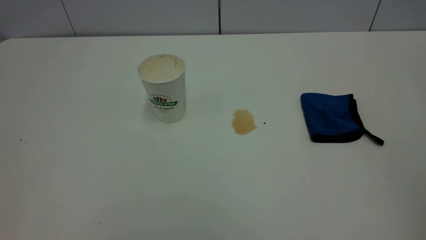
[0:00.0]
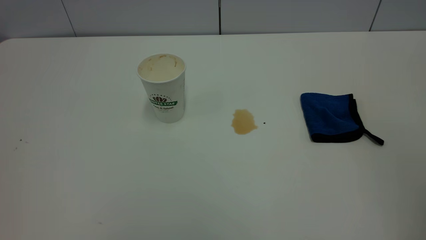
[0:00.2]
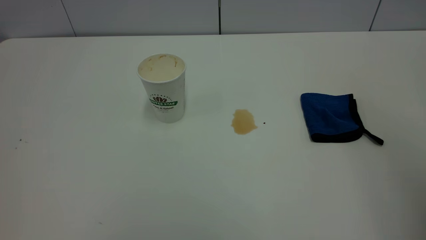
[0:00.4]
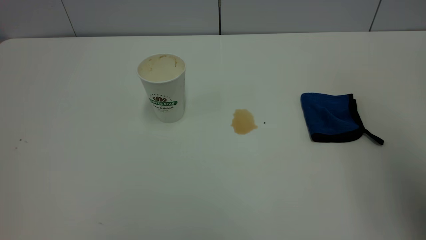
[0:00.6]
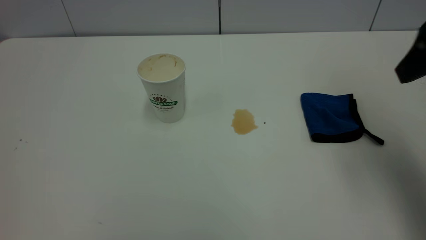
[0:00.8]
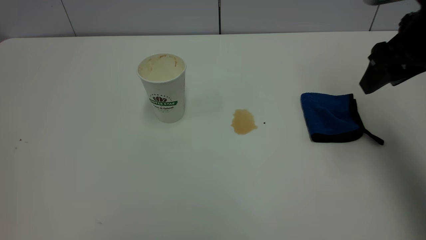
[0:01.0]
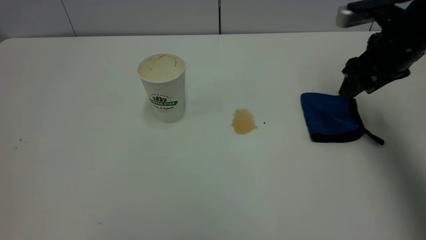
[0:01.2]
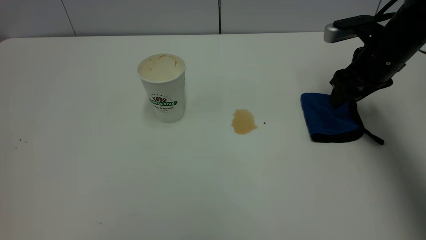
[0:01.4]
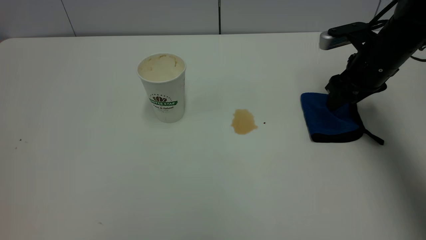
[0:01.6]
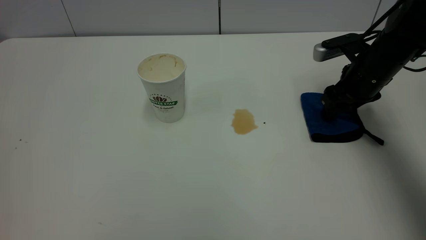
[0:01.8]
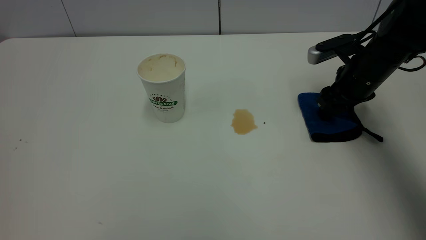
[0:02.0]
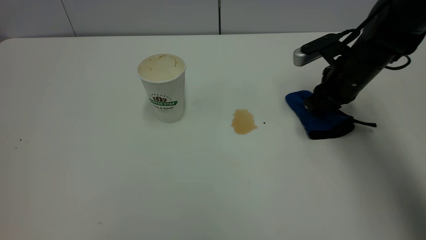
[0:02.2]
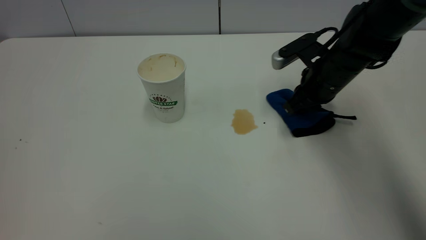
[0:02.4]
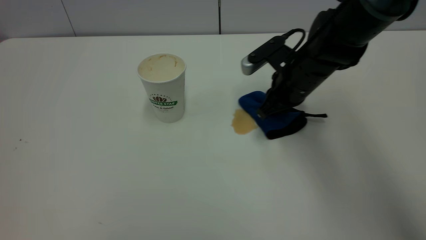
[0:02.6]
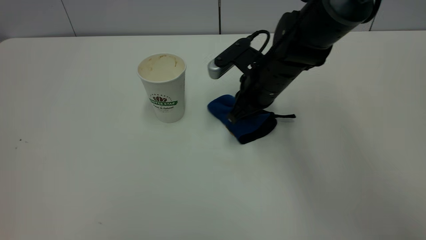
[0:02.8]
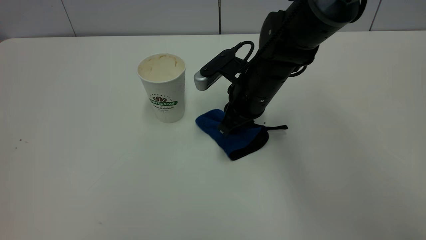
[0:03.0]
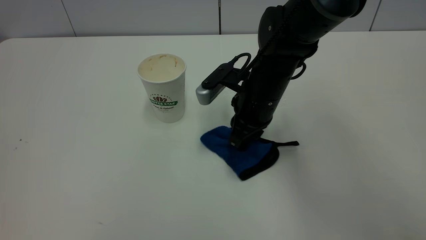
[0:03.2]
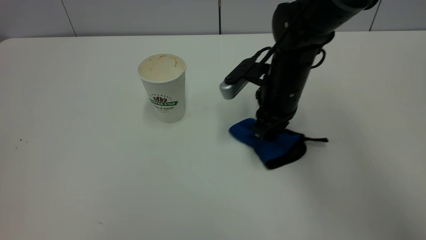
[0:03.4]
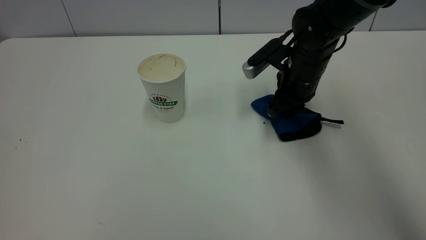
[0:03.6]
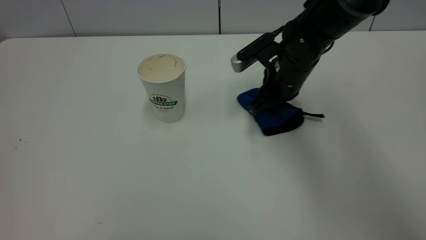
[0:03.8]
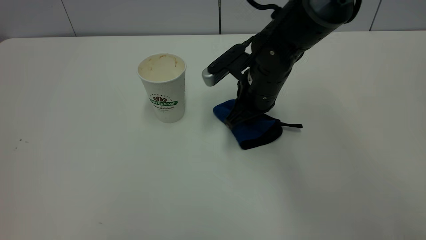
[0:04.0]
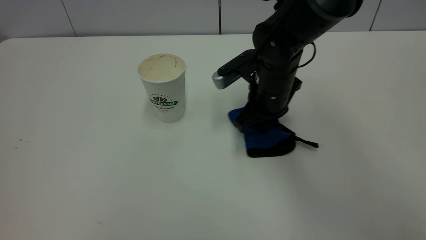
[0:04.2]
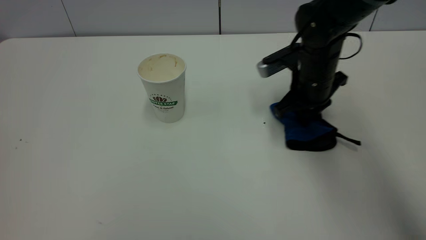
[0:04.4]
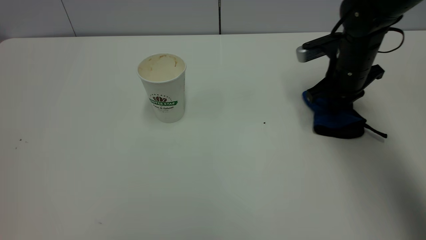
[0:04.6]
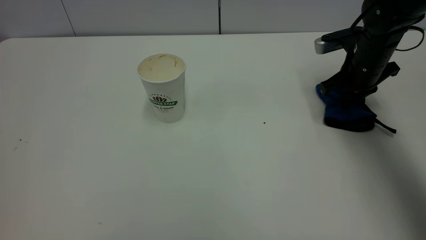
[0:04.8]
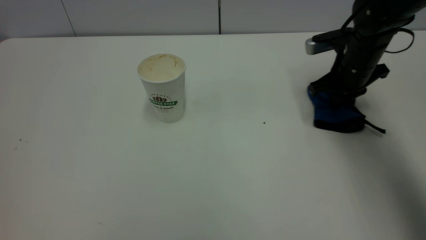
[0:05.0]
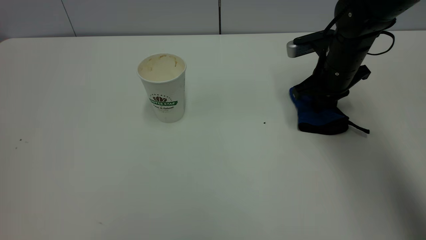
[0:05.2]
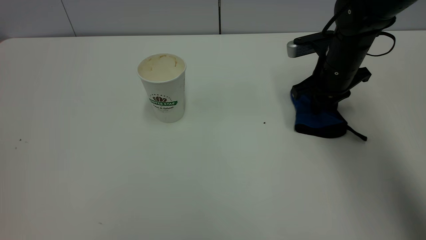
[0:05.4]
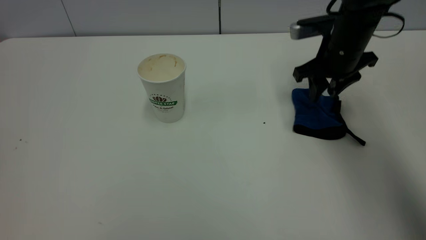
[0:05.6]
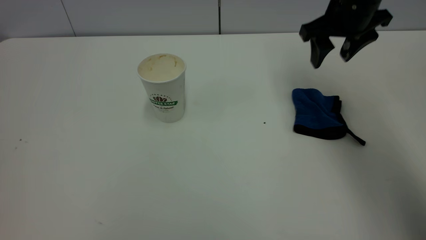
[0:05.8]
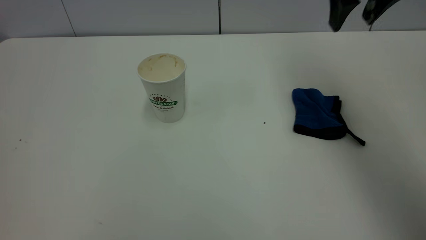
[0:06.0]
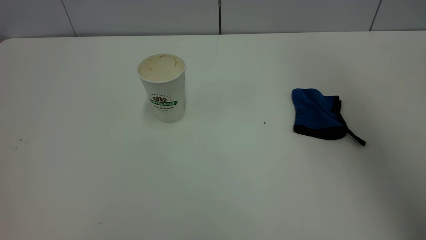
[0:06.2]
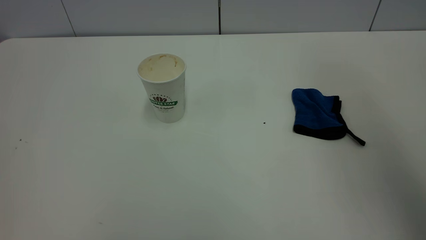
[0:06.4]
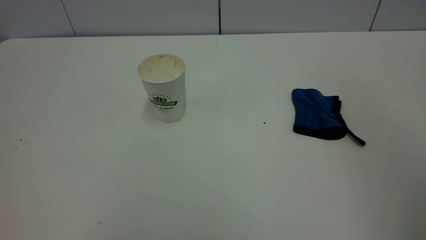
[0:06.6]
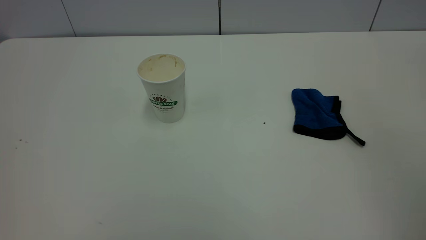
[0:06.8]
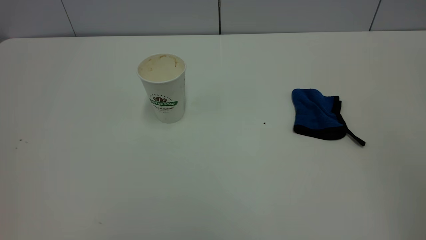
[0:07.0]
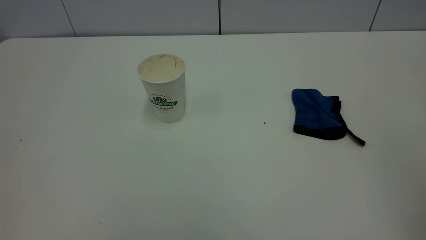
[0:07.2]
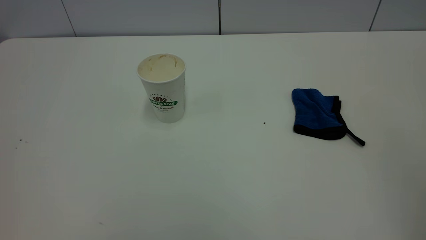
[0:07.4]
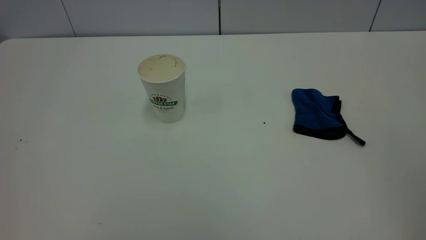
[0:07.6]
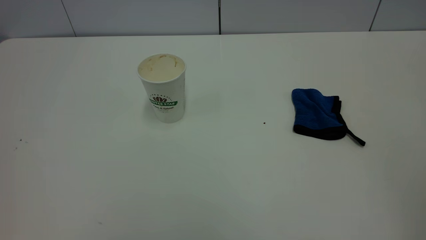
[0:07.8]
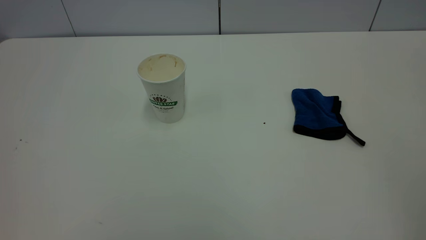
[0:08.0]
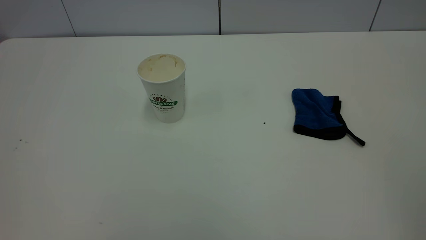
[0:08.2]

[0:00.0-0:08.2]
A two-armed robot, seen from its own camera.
Task of the whole recording: the left gripper pick up the fallen cup and place it upright, the right gripper grasp the blue rag and wipe the tea stain on the table, the right gripper put the blue rag back in its original position.
Step, 0:00.0 to 0:05.6: Wipe the stains off the table with a rag.
0:00.0 to 0:01.6: The right gripper travels forward and downward by approximately 50 cm.
0:01.6 to 0:03.2: The right gripper travels to the left by about 20 cm, and closes up.
0:03.2 to 0:05.0: The right gripper swings left and right, some 20 cm each way, with 2 reversals.
0:05.0 to 0:06.6: The right gripper heads backward and upward, covering about 40 cm, and opens.
